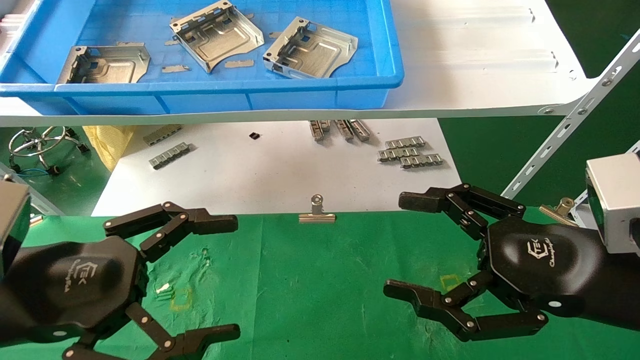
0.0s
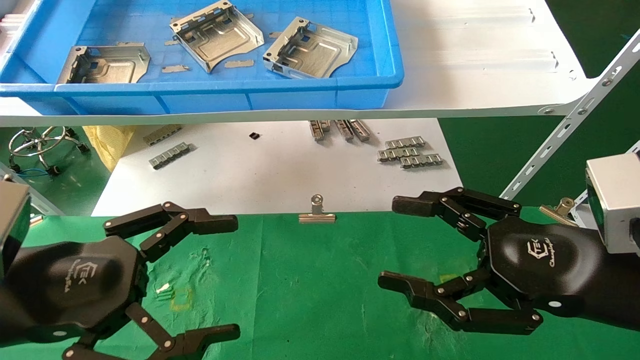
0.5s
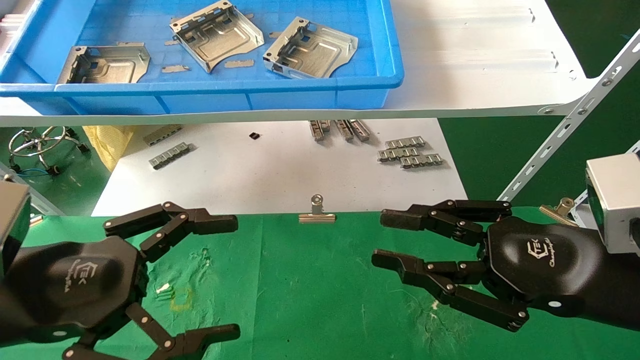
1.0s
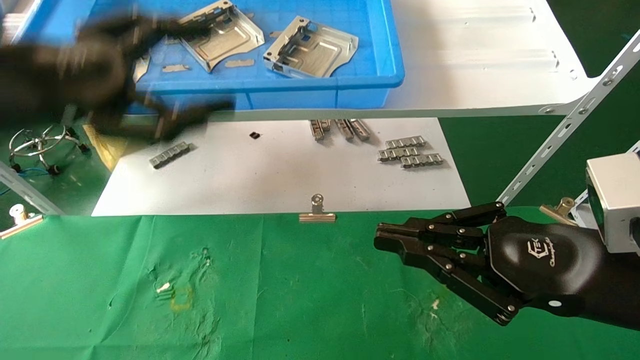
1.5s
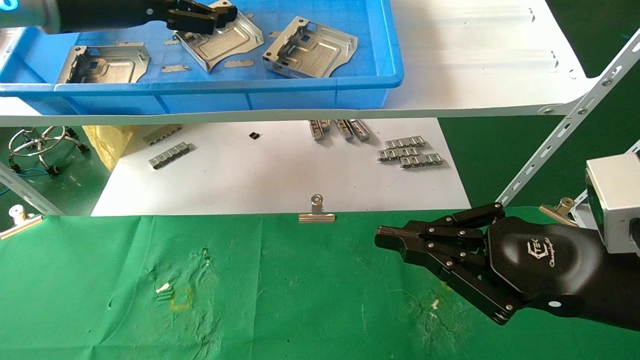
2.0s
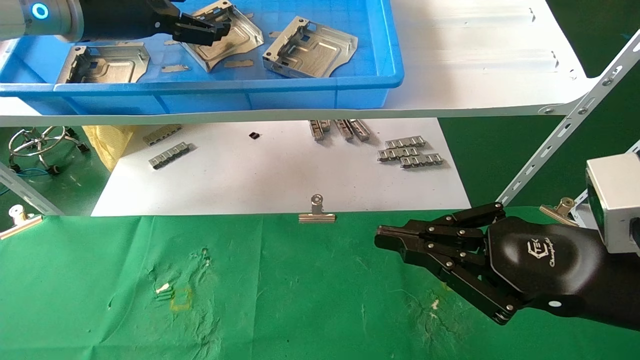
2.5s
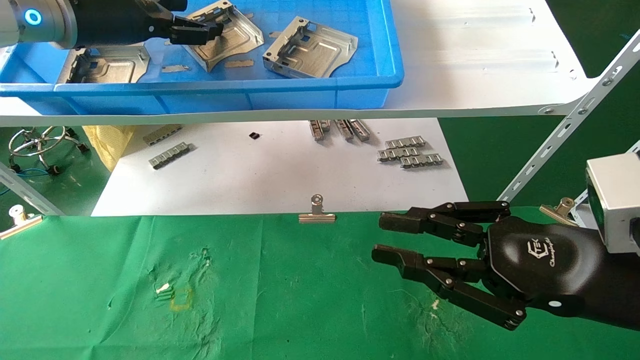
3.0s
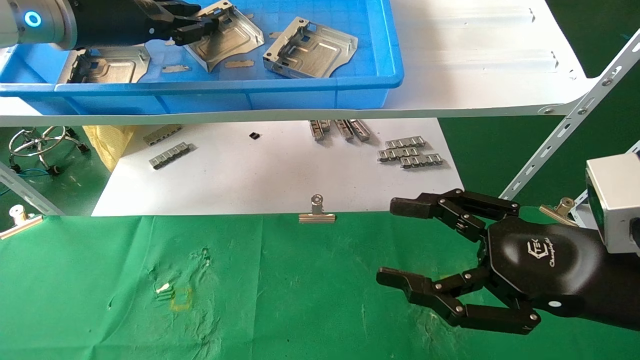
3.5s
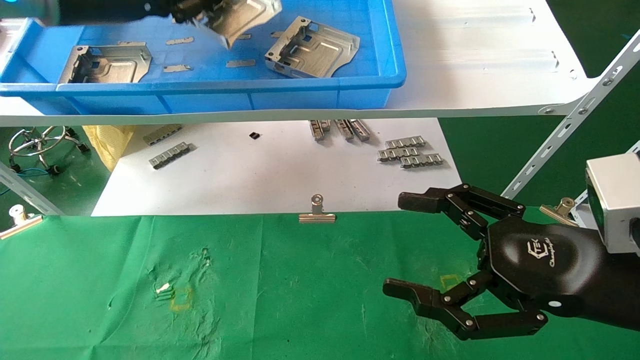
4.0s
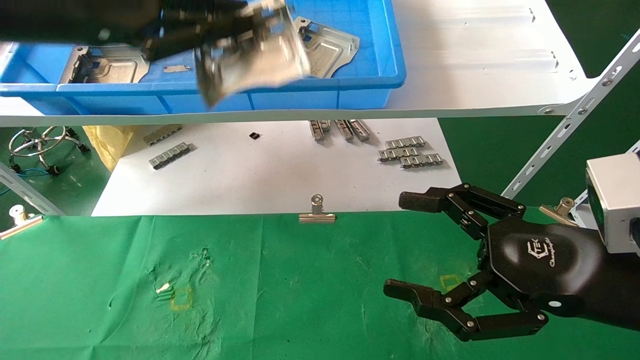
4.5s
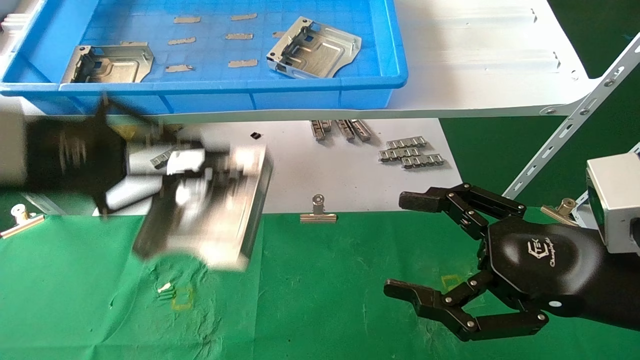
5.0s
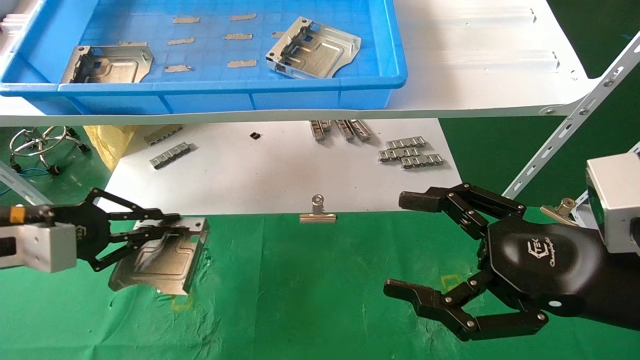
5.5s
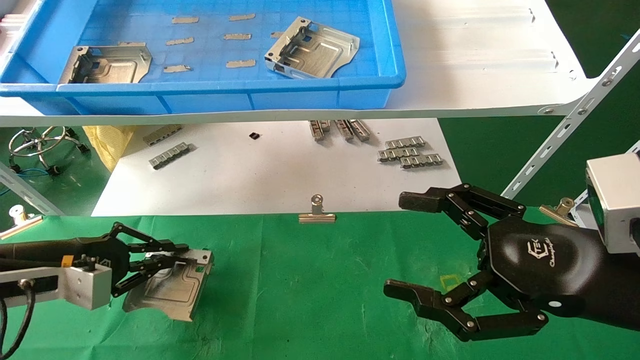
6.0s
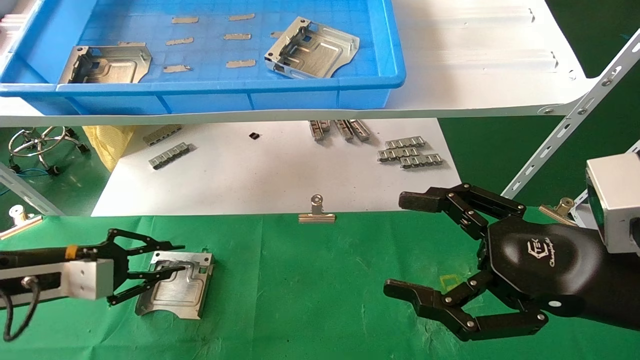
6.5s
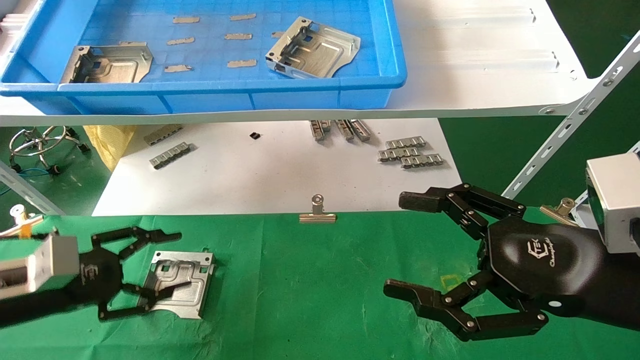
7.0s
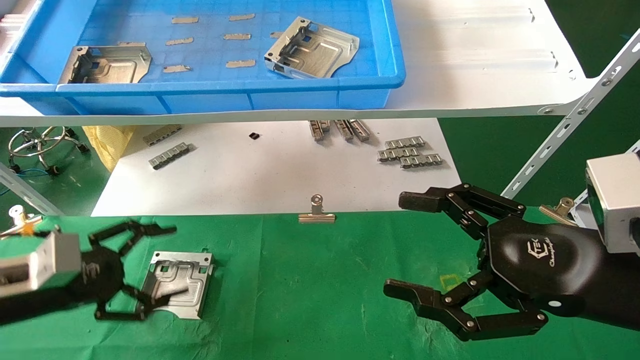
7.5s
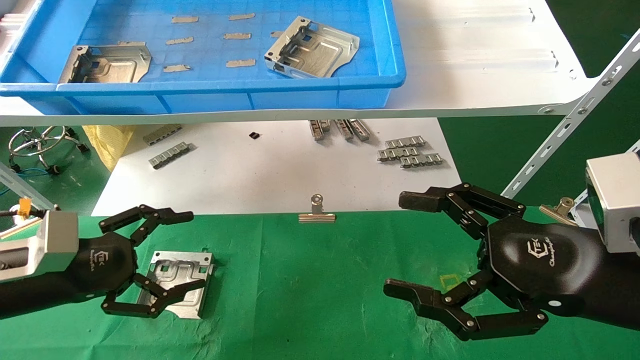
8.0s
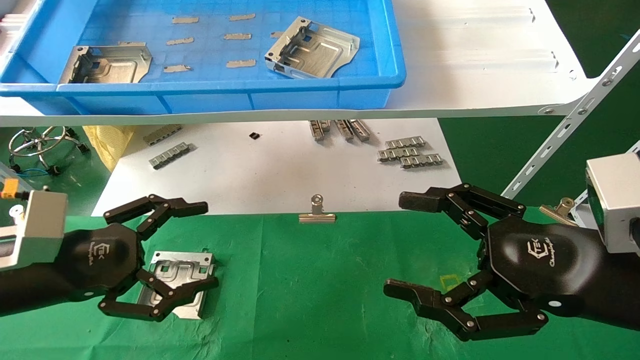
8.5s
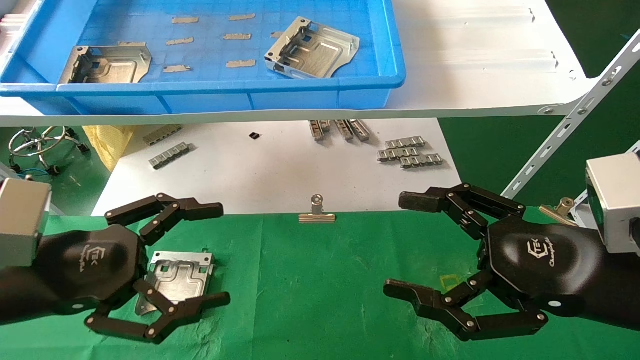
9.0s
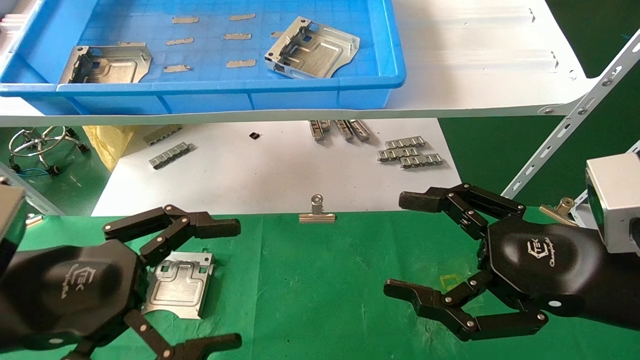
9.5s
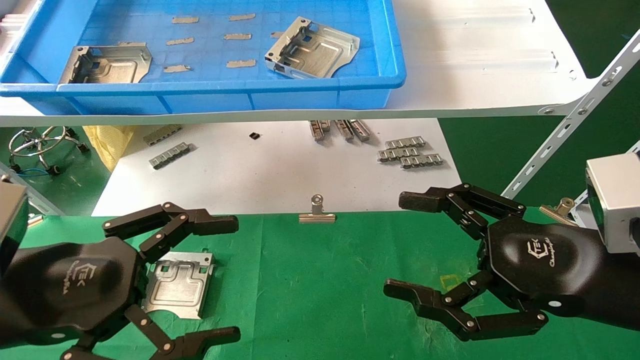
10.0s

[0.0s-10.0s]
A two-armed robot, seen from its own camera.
Task of the whole recording: use the mechanical arm to pick up the parts and place them on the table.
Step, 1.5s to 3.5s: Pick up the hard drive bracket from the feeding area.
Step, 4.0s to 6.5s: Place the hard drive bracket into the box.
0.0s to 2.0s: The right gripper closes up; the left gripper moves upward and forward, roughly 30 cm.
2.0s to 4.0s: The right gripper opens. Meanwhile the left gripper closes its fingers.
4.0s to 6.0s: The left gripper travels downward by roughly 30 cm.
6.0s to 8.0s: The left gripper shifts by roughly 5 cm, and opens.
8.0s to 10.0s: The left gripper moves backward, to the right and upward, about 15 cm.

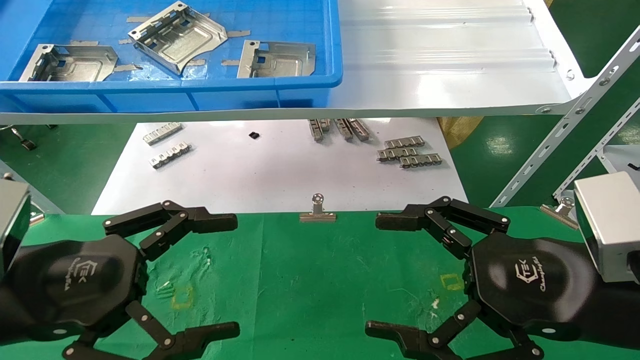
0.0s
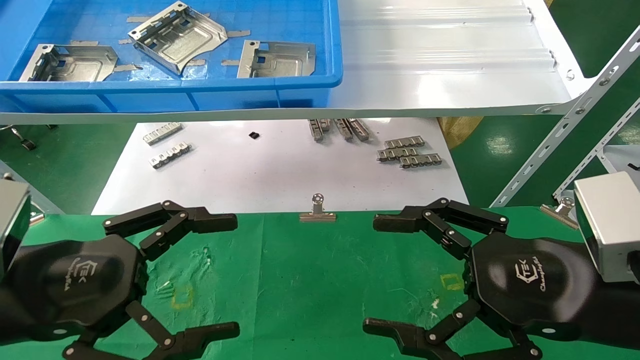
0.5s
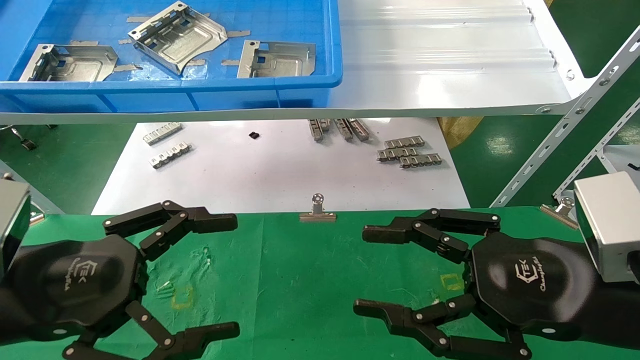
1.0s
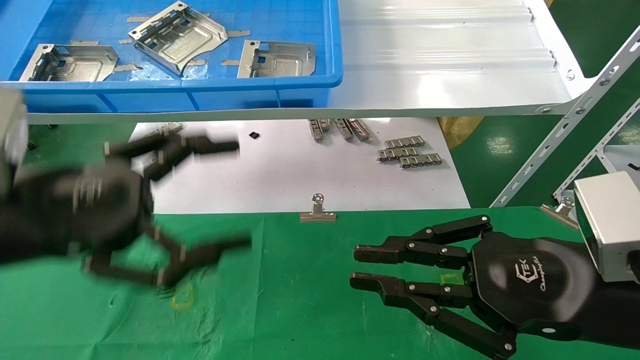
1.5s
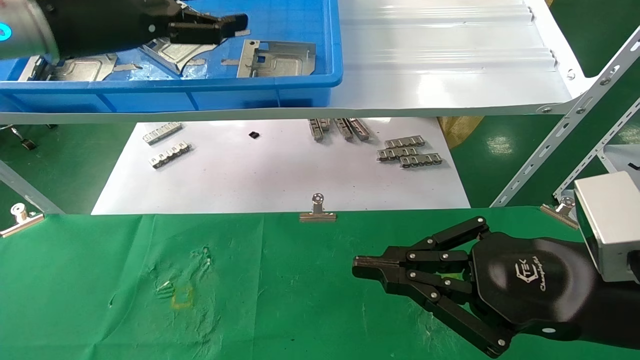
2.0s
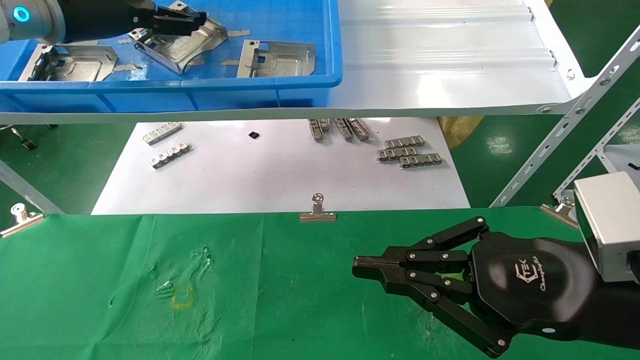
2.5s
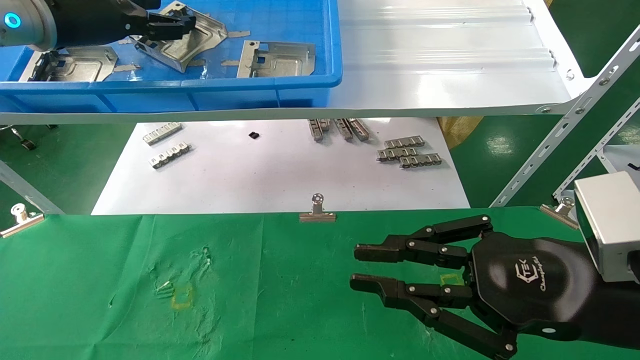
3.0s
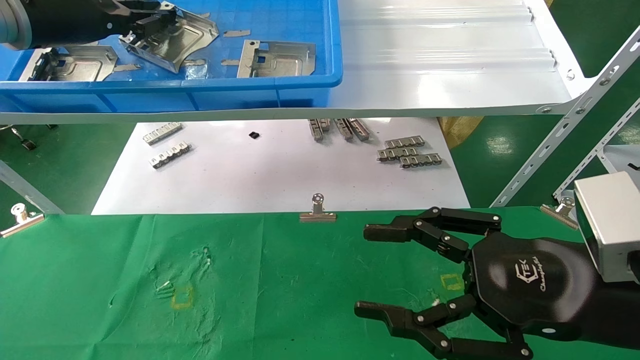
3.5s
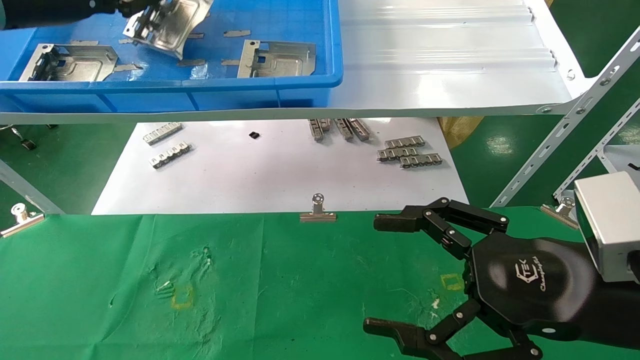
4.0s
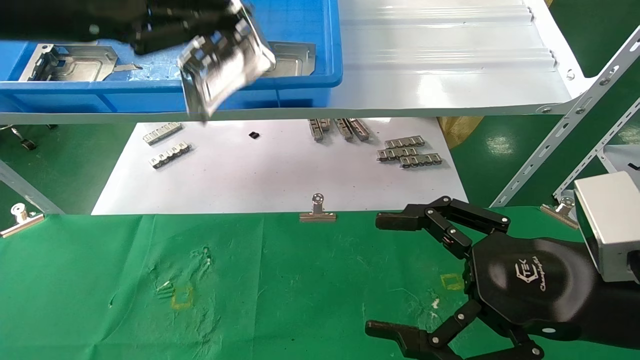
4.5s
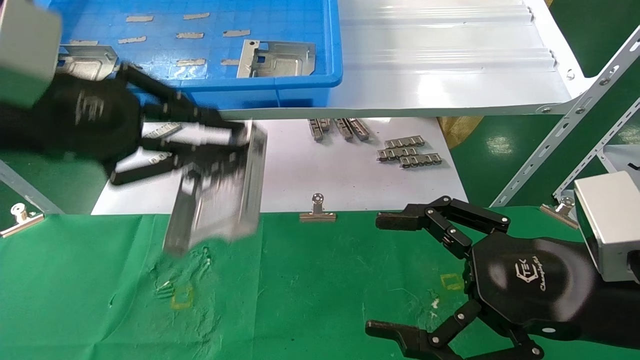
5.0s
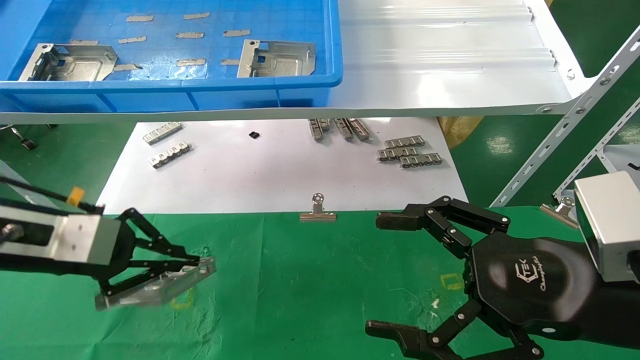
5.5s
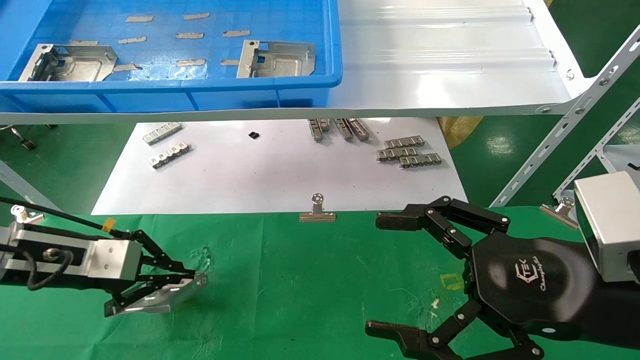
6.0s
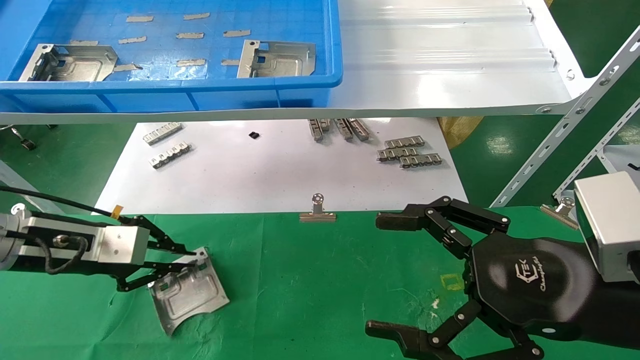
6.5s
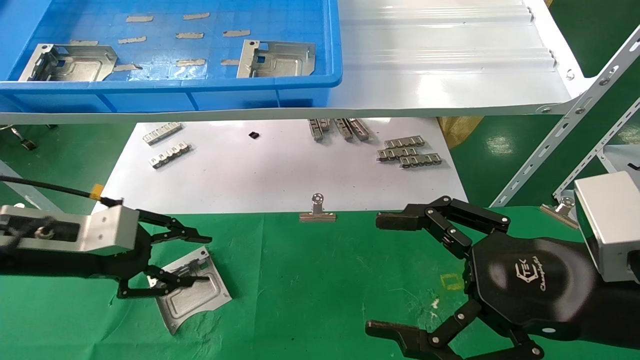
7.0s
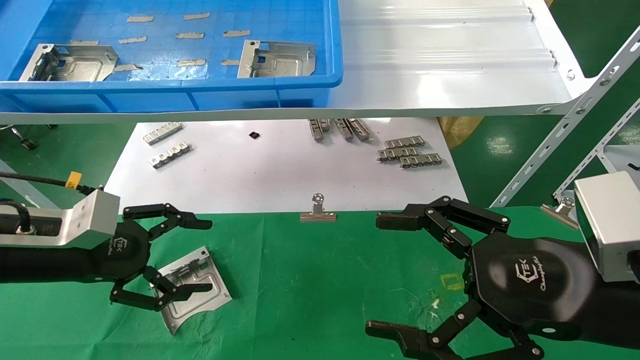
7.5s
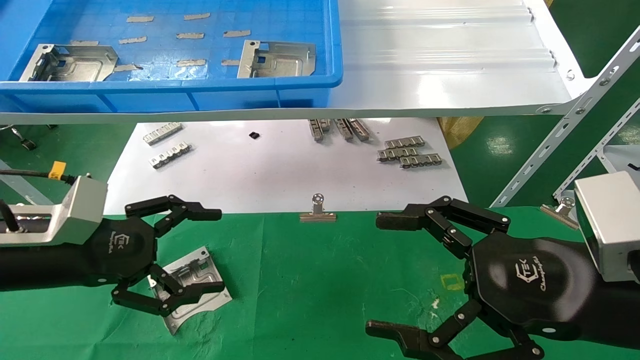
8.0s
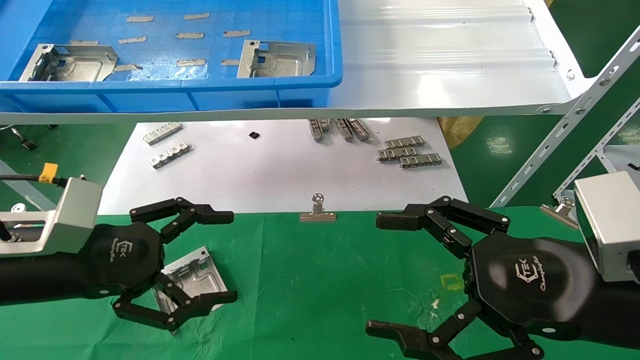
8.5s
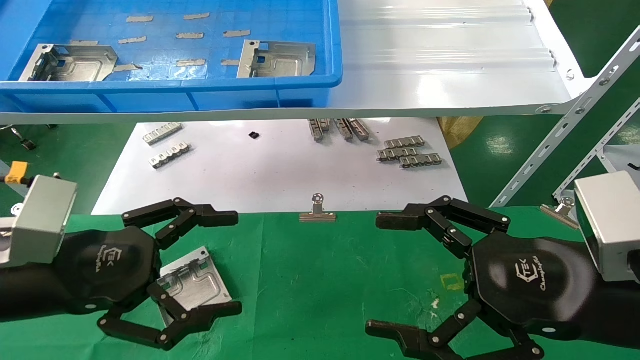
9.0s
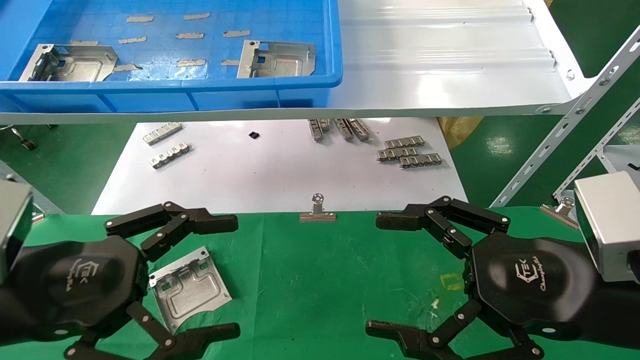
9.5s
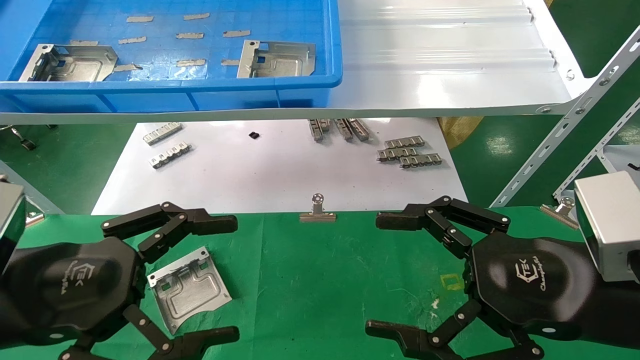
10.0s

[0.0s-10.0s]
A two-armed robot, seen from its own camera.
Task of the whole recording: use the mechanical arm to pick up the parts and place them on the table.
Step, 2.0s to 3.5s: Pick up the hard drive bracket from the feeding area.
Step, 4.0s to 6.5s: Place the hard drive bracket into the box.
0.0s to 2.0s: The left gripper is displaced upward and forward by about 25 cm; the right gripper closes.
2.0s to 4.0s: The right gripper opens its fingers. The left gripper shifts about 5 cm to the left, and closes its fingers.
4.0s to 6.0s: The left gripper shifts some 25 cm downward.
6.0s to 8.0s: The left gripper shifts by approximately 5 cm, and opens.
8.0s to 10.0s: The left gripper is displaced backward by roughly 10 cm.
